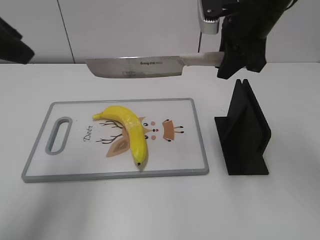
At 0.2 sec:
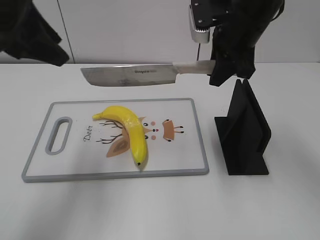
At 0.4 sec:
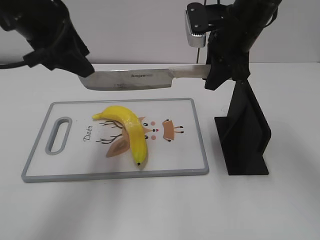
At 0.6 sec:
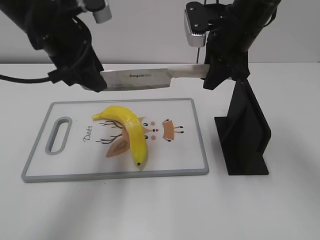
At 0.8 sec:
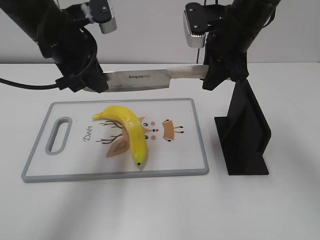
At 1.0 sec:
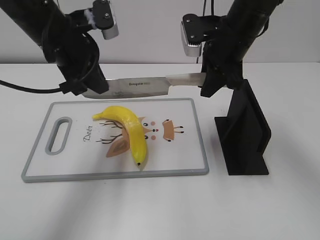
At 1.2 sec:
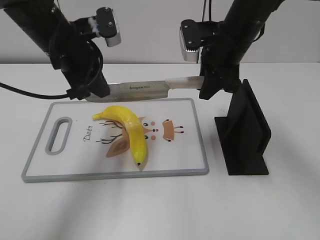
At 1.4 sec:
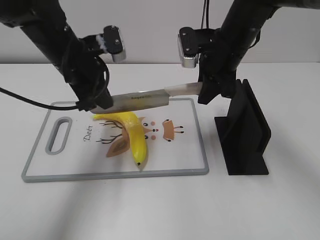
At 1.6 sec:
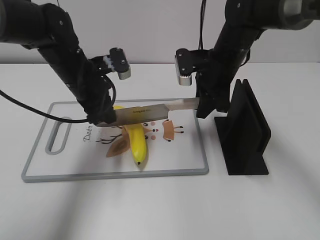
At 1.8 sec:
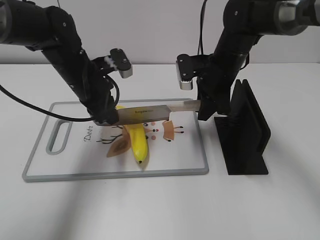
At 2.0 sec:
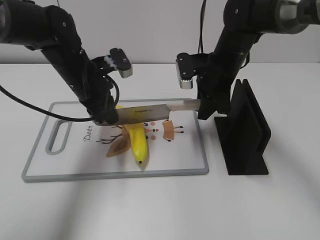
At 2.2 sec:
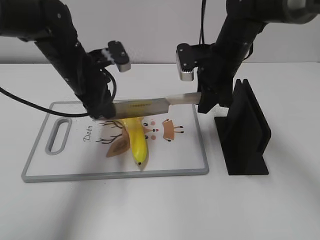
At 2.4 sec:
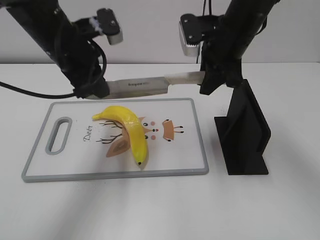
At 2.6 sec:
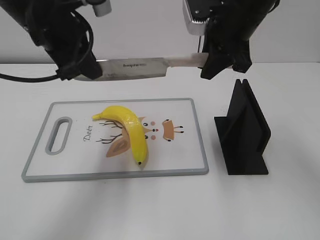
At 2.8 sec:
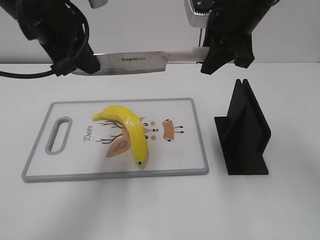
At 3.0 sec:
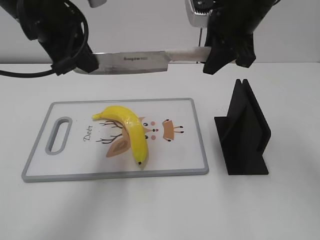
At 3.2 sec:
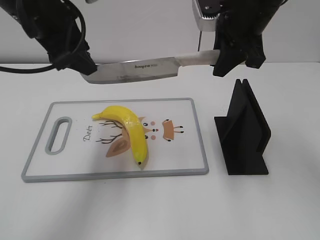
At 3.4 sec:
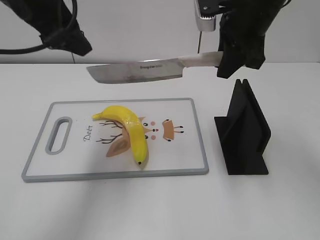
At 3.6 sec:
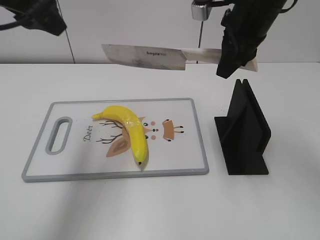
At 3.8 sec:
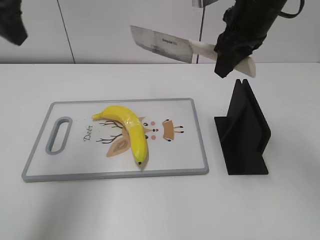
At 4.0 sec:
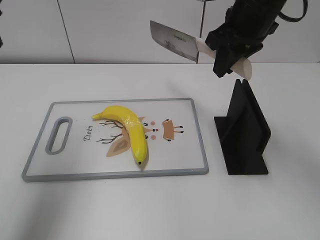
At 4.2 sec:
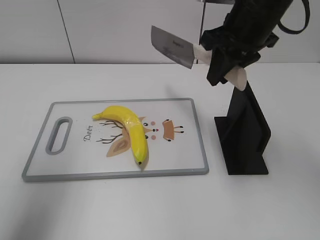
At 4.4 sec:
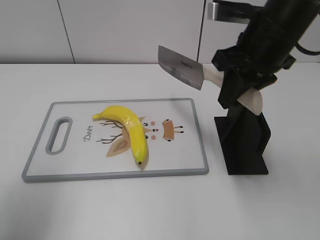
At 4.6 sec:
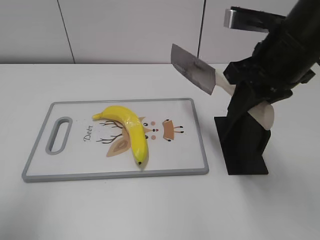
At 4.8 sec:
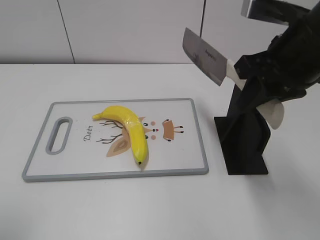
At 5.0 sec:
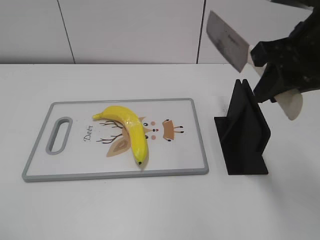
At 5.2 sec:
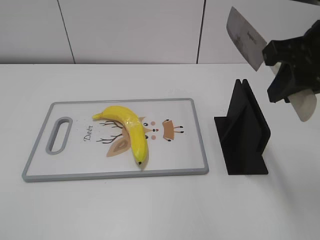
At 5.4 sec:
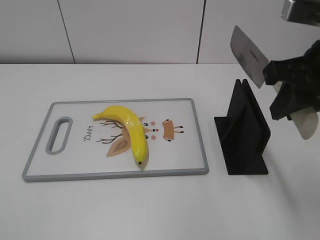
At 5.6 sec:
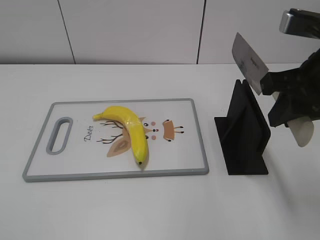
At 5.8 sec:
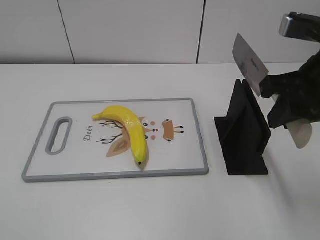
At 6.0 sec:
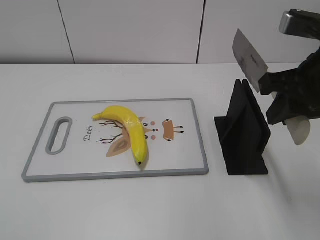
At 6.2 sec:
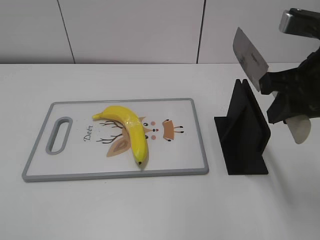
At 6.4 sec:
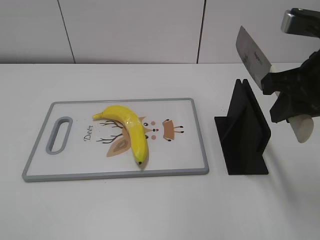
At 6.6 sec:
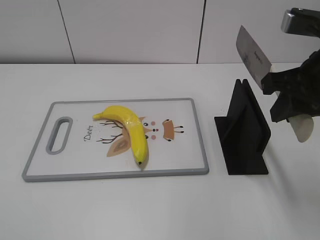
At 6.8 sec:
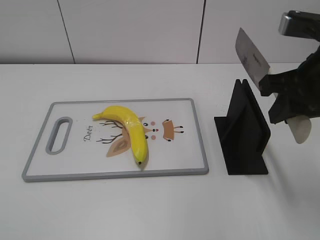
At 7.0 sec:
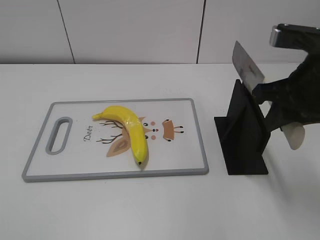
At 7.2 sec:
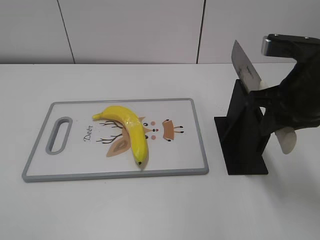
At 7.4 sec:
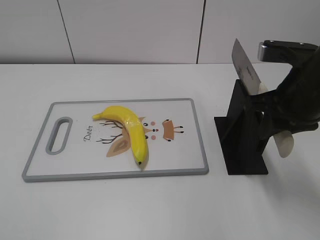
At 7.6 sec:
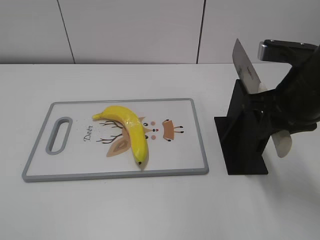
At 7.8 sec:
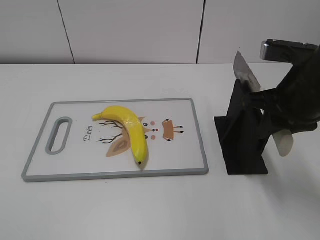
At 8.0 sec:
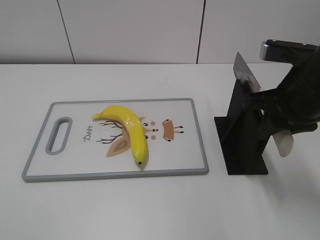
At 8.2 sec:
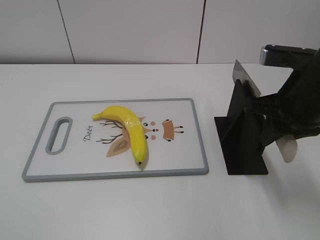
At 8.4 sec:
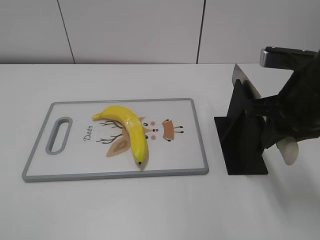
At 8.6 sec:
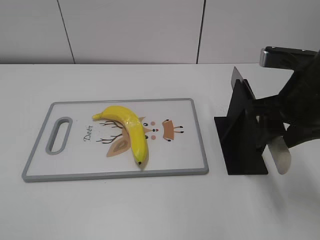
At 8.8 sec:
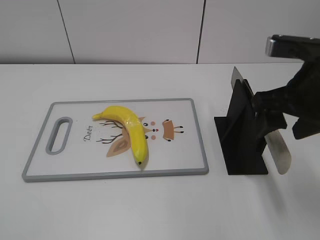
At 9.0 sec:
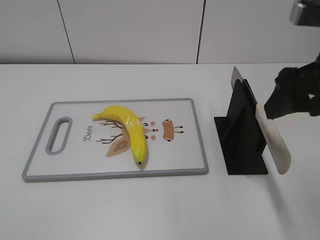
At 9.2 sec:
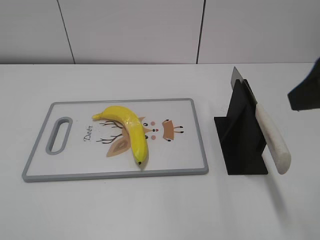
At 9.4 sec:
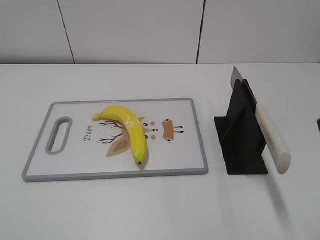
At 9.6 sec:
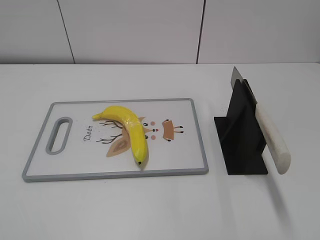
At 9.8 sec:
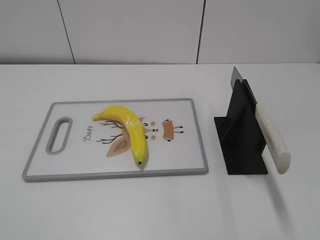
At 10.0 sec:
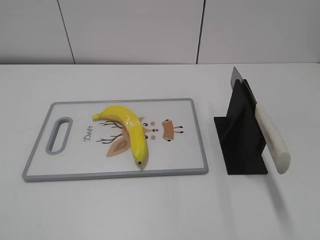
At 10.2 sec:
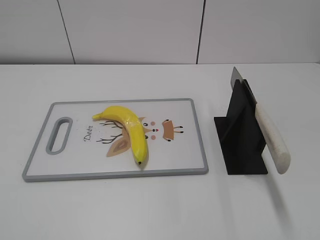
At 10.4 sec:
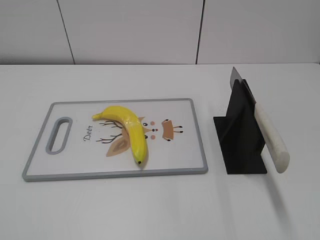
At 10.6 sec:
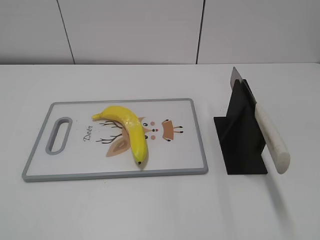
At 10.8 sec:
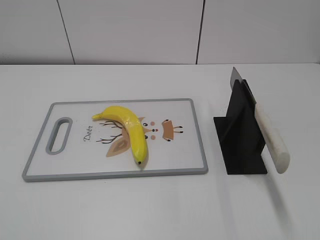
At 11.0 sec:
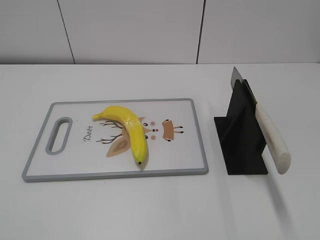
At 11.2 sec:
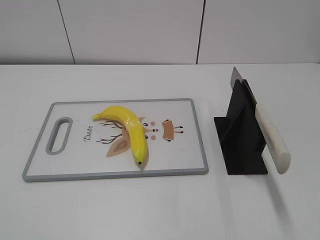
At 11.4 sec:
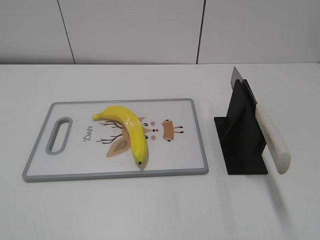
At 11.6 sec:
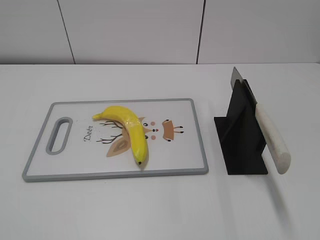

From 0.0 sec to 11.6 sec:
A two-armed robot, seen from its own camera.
Task of the whole recording: cut plastic banana.
Step, from 0.0 sec to 2.8 sec: Lift the knife with your right hand.
Step, from 3.0 sec to 4.2 sec: Cut the banana with your right hand.
Step, from 4.4 sec to 5.4 sec: Lift the knife with your right hand.
Step, from 5.6 sec to 11.6 sec: Place the knife on the storage rack with your right hand.
From 0.0 sec to 1.4 sec: The left gripper travels downward, to the right and forward by roughly 20 cm, and closes its fingers. The right gripper shifts approximately 10 cm downward.
From 1.4 sec to 2.8 sec: Both grippers travel together upward, roughly 10 cm.
From 2.8 sec to 4.4 sec: The right gripper heads backward, covering approximately 5 cm; the left gripper goes approximately 15 cm to the left and backward, and opens up.
From 4.4 sec to 5.8 sec: The left gripper travels backward by some 25 cm, while the right gripper moves backward and to the right, approximately 10 cm.
From 5.8 sec to 7.2 sec: The grippers make only small movements.
From 7.2 sec to 8.8 sec: The right gripper opens its fingers.
From 8.8 sec to 10.2 sec: The right gripper goes approximately 25 cm backward and to the right.
